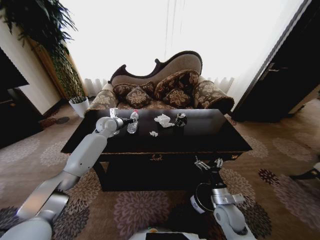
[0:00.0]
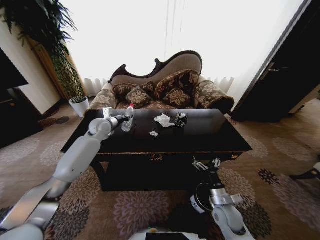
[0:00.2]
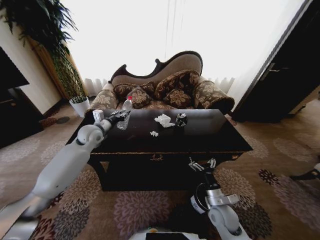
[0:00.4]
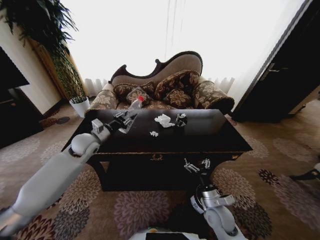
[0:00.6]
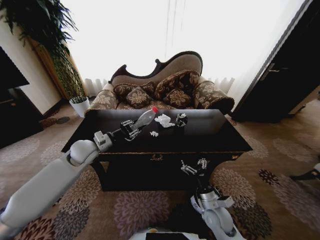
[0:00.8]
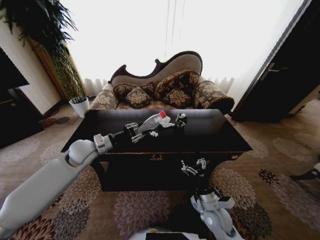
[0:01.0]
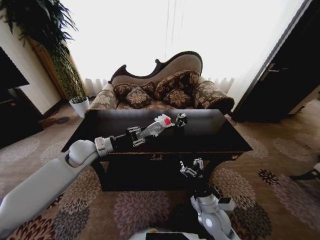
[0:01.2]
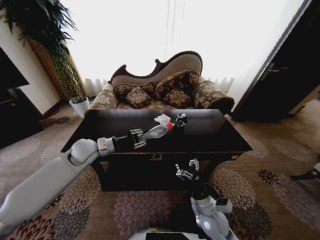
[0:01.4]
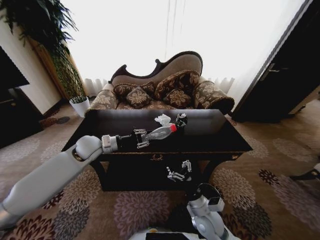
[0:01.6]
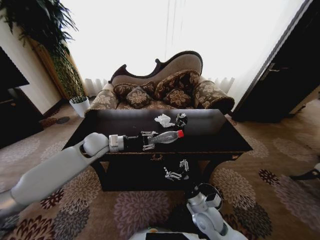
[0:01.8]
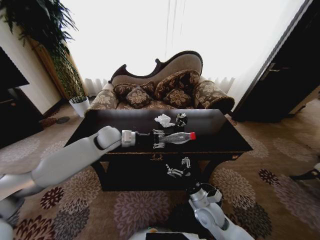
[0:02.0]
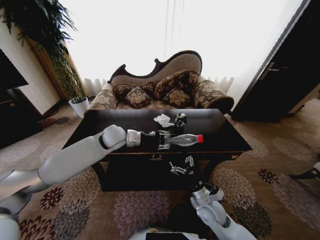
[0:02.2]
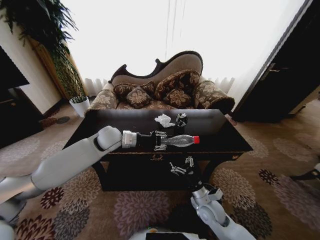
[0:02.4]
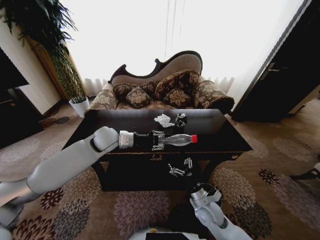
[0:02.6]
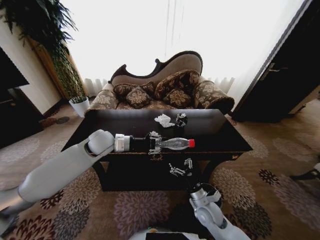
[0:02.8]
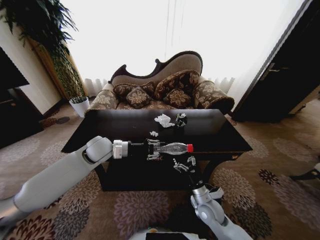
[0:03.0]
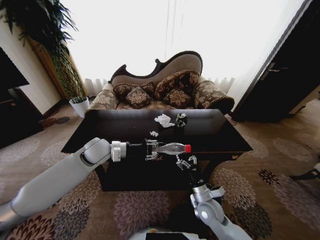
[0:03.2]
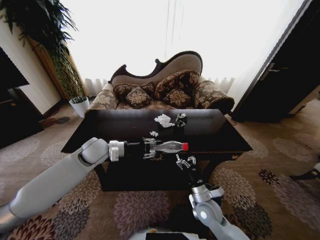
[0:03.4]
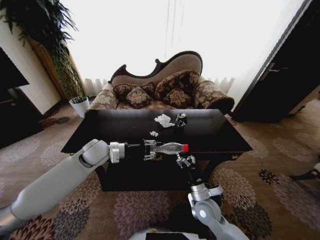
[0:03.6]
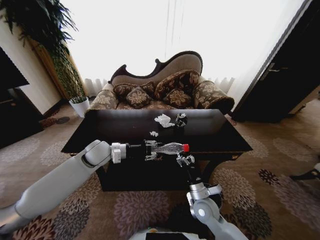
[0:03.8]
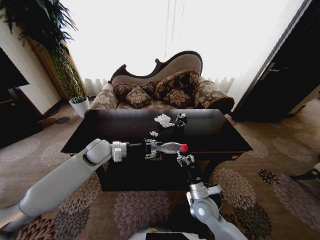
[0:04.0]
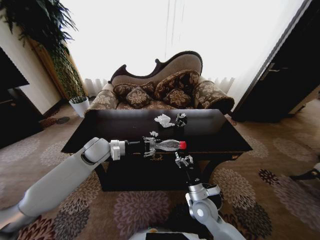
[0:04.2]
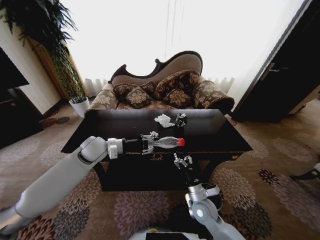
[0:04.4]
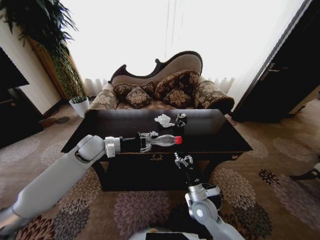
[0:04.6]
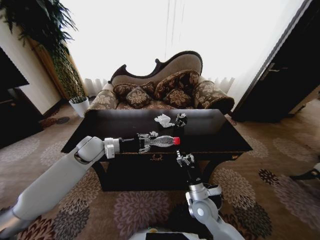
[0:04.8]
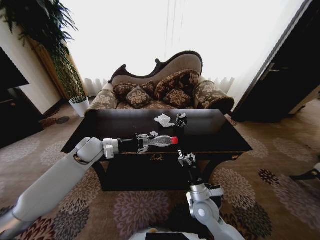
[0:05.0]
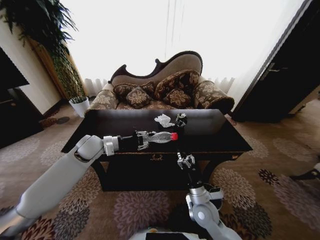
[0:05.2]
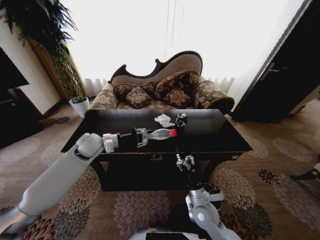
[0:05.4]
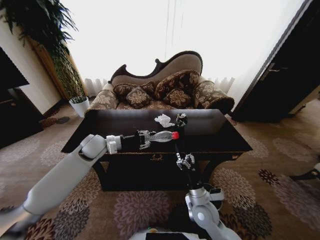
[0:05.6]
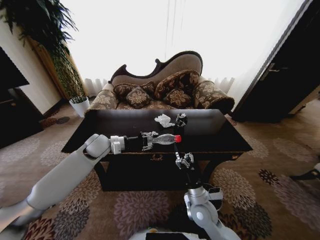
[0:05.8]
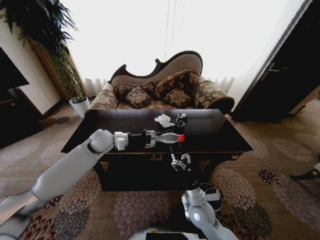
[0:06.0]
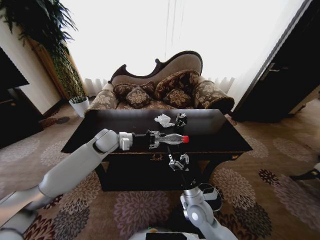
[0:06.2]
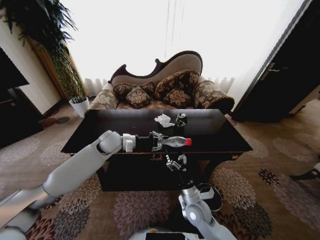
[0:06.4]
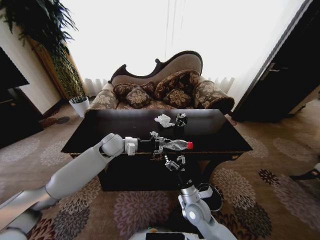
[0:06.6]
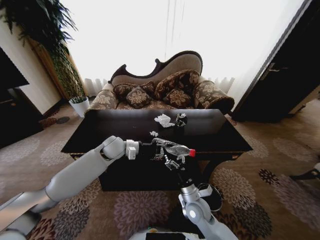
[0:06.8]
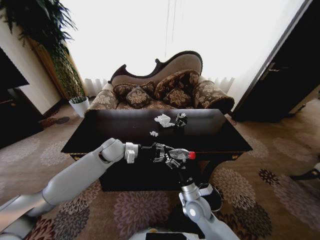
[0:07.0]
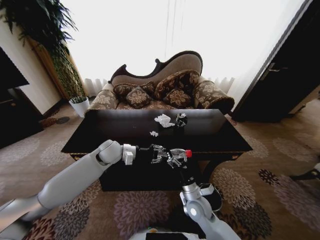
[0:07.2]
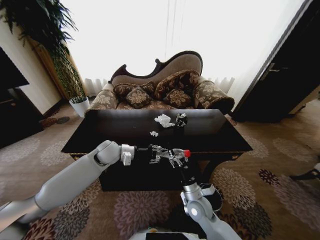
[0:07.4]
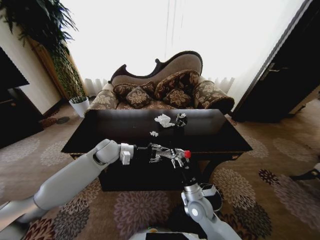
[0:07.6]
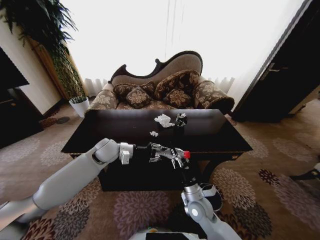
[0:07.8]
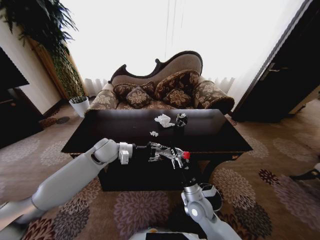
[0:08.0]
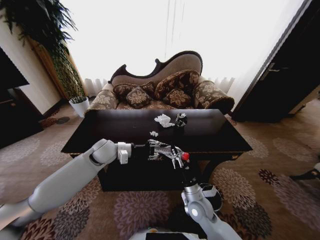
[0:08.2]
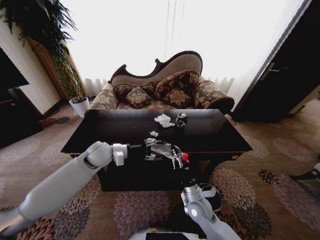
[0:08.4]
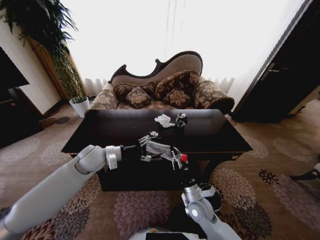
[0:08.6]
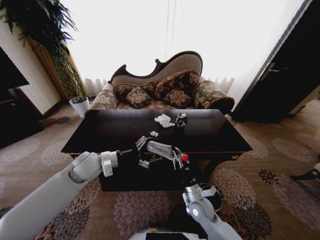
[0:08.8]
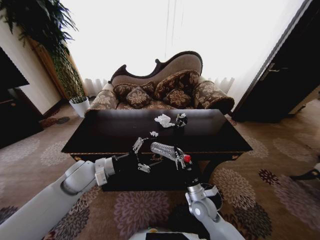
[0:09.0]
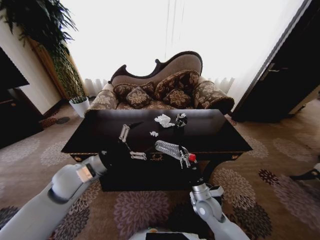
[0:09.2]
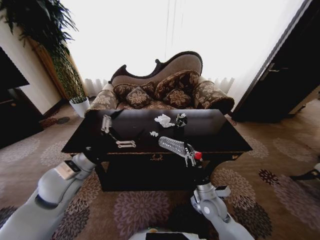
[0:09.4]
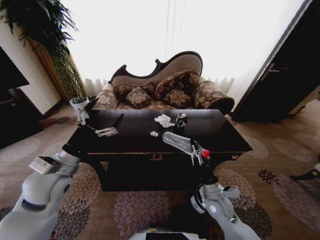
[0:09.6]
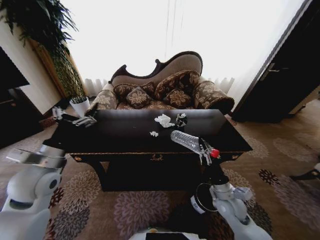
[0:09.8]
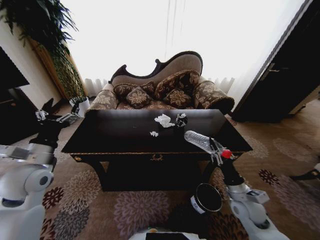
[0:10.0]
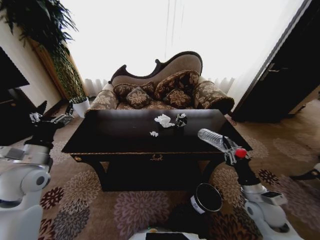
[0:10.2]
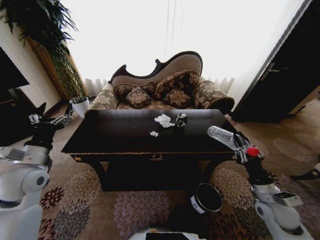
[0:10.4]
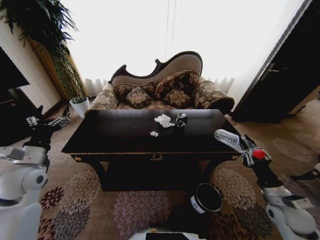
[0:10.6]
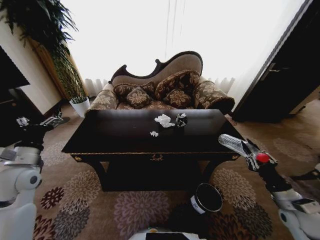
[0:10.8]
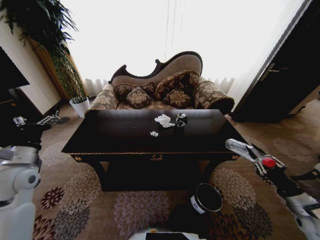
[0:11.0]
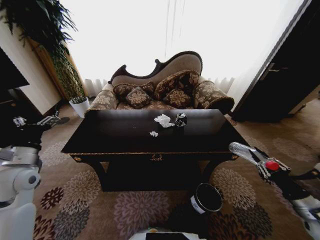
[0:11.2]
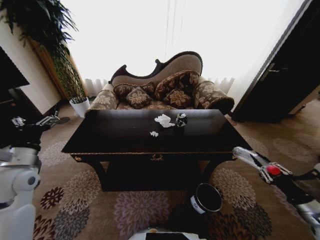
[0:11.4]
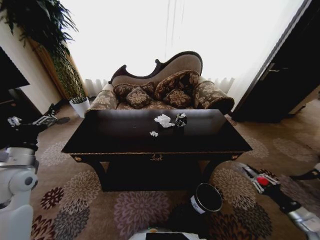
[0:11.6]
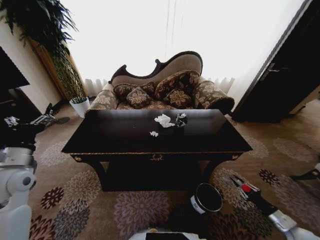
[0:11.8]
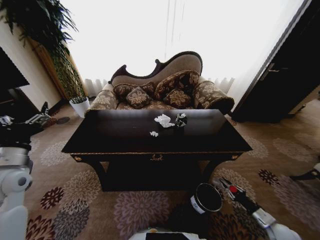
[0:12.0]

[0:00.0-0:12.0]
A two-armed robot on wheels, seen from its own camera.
Task of the whole recording: Move to the front of the table and place the trash on the table into the trash bin.
0:00.0 to 0:01.6: The left gripper heads backward, covering some 15 cm. Meanwhile the right gripper heads to the left, covering some 10 cm.
0:01.6 to 0:03.0: The right gripper shifts by some 5 cm.
0:03.0 to 0:06.0: The grippers make only small movements.
0:06.0 to 0:07.6: The right gripper closes. The left gripper ends up about 5 cm from where it was.
0:07.6 to 0:09.0: The right gripper closes, while the left gripper shifts roughly 10 cm backward and to the left, and opens up.
0:09.0 to 0:10.4: The right gripper heads to the right and upward, covering approximately 25 cm; the left gripper goes about 15 cm to the left.
0:10.4 to 0:12.0: The right gripper moves downward and to the right, roughly 20 cm.

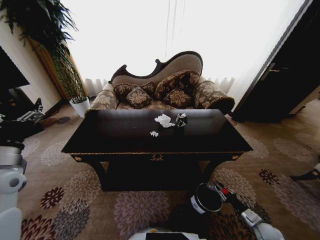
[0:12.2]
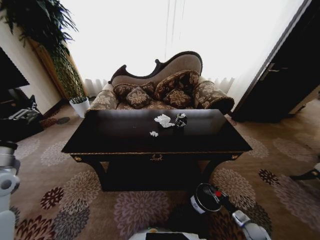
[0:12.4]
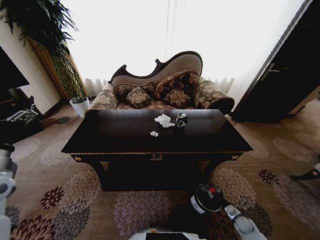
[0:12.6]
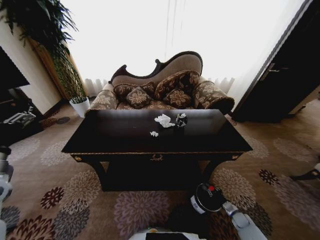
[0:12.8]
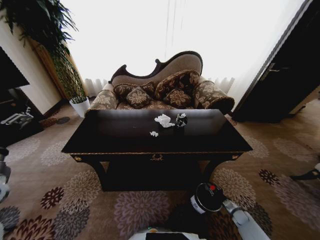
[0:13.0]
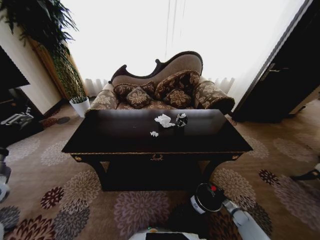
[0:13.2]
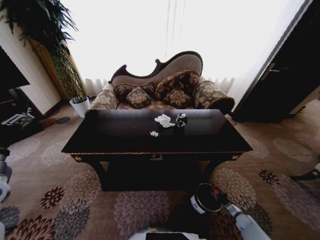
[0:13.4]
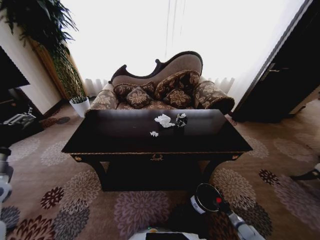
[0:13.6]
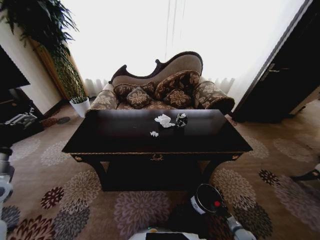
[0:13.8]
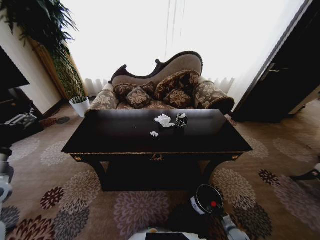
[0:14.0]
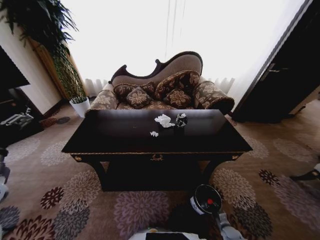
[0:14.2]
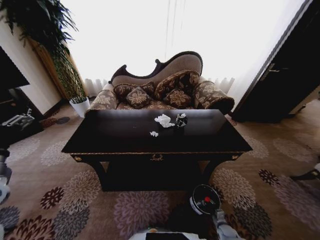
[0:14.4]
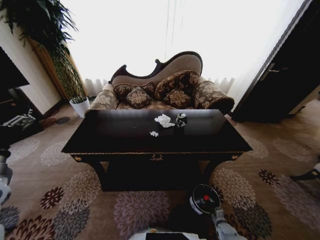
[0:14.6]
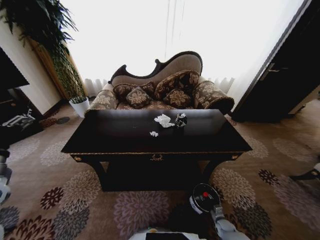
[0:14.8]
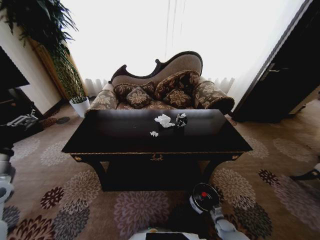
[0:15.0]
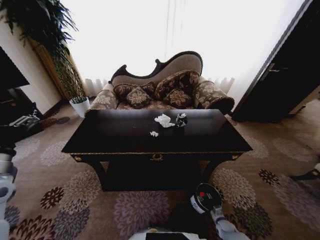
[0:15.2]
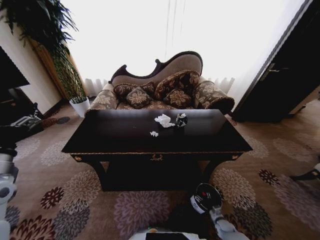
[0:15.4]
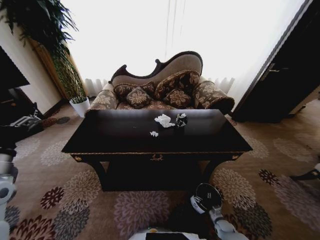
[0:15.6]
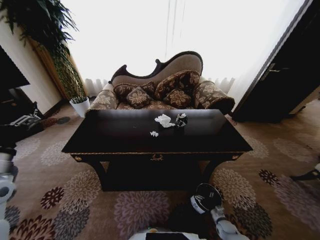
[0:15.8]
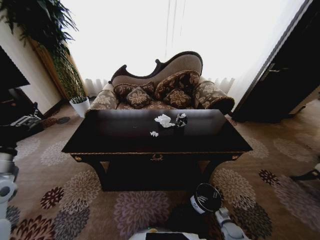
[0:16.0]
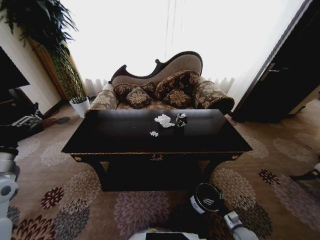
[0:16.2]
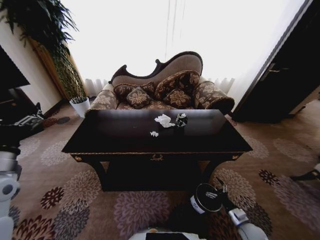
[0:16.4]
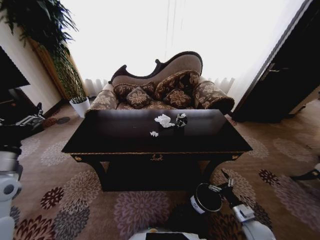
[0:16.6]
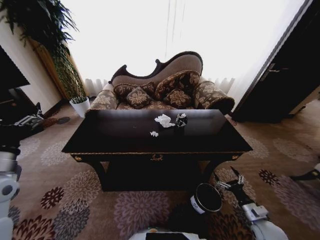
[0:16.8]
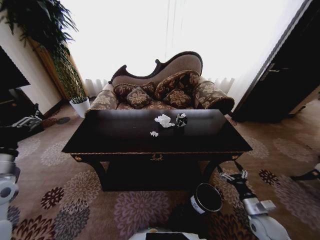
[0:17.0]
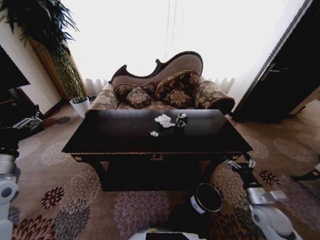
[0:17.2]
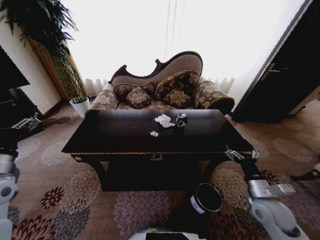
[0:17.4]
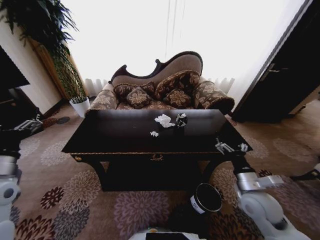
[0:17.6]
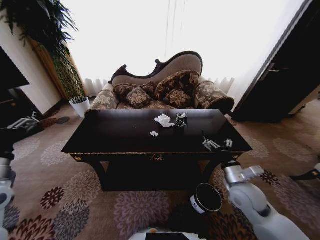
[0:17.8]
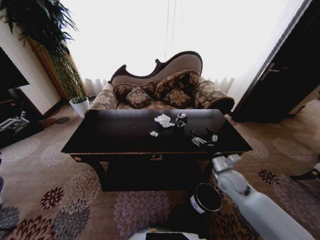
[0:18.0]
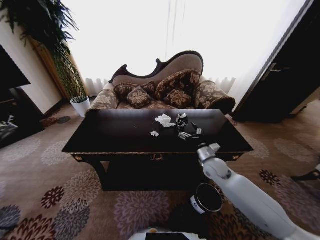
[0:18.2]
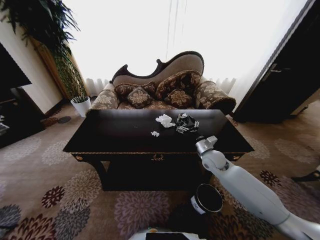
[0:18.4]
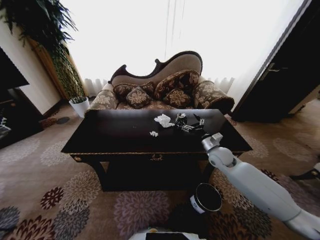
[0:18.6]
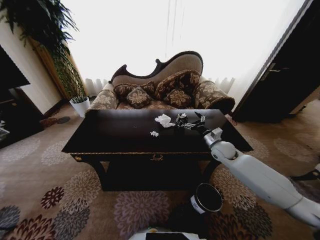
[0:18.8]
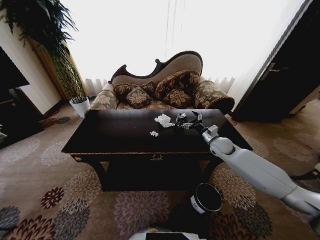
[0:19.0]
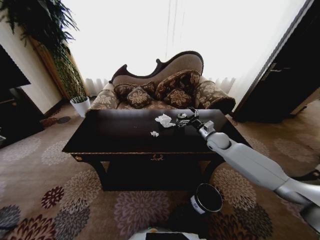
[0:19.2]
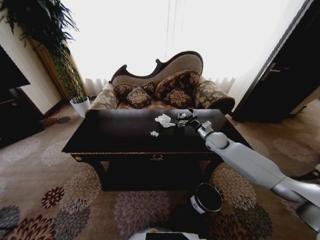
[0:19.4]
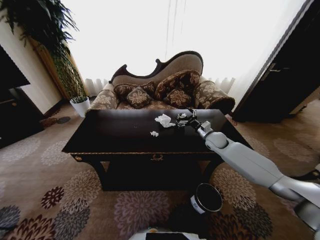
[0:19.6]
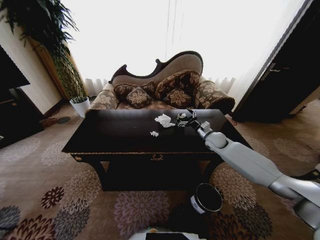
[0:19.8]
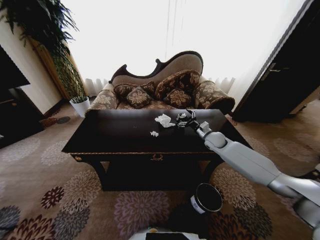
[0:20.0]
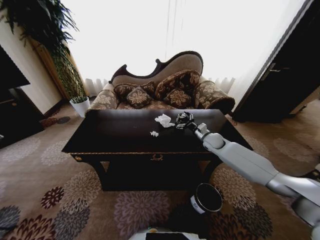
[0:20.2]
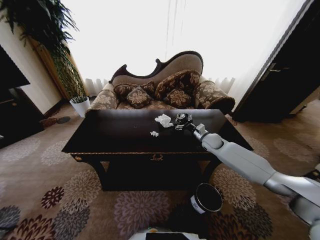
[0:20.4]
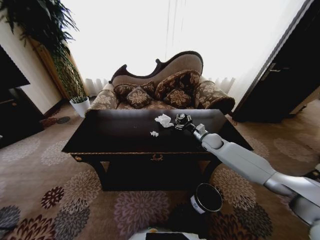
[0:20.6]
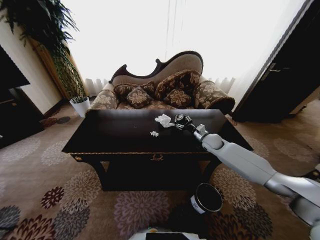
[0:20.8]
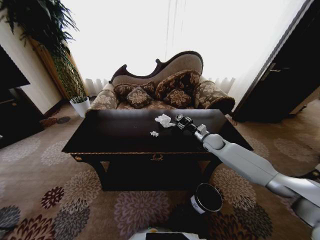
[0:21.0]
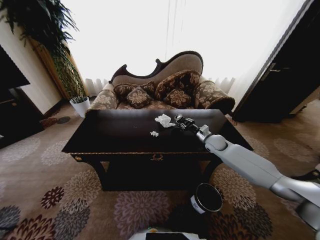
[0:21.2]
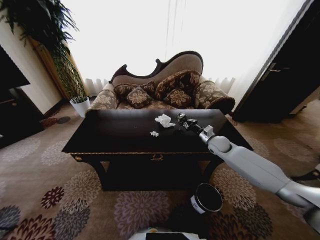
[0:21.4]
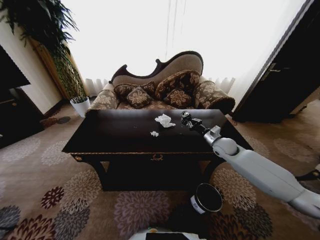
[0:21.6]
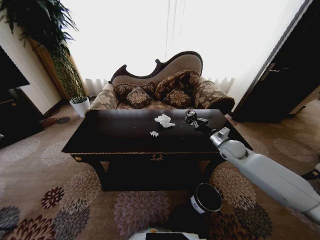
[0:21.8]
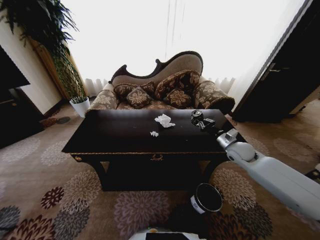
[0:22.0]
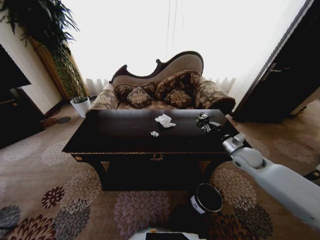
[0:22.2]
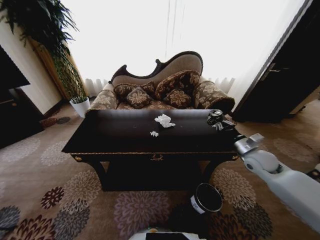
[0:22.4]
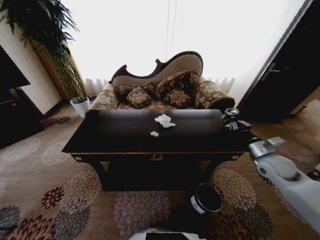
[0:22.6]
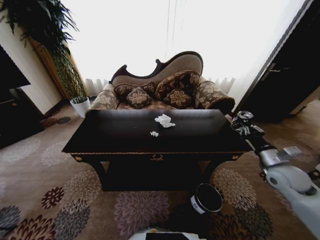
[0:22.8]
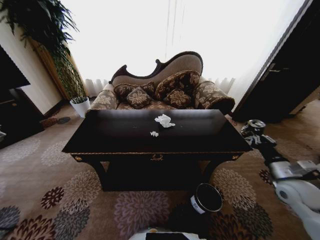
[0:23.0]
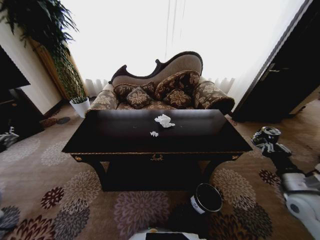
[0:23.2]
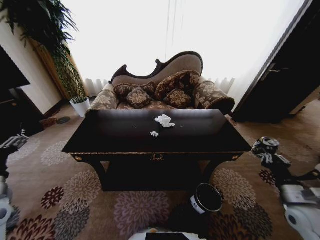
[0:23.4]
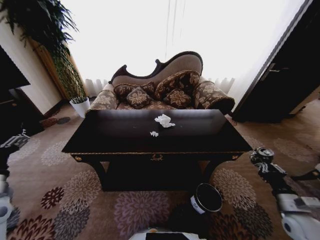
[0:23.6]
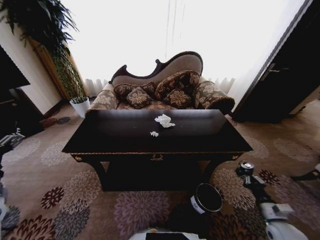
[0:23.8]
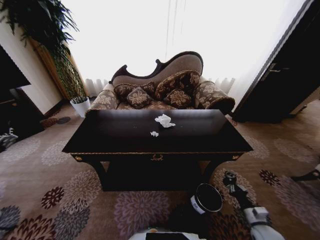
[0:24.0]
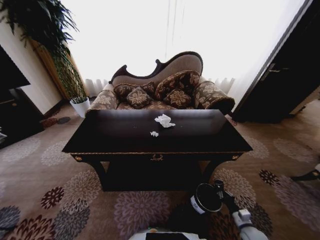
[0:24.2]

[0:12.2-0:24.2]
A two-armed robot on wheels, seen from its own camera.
Task of the whole recording: Move to the front of the table and place the trash on the table into the trash bin.
0:12.2 to 0:13.8: The right gripper is displaced downward by some 15 cm.
0:13.8 to 0:15.2: The right gripper goes some 10 cm to the left.
0:15.2 to 0:16.6: The right gripper is displaced upward by approximately 20 cm, and opens its fingers.
0:16.6 to 0:18.2: The left gripper heads backward, covering approximately 10 cm. Meanwhile the right gripper is displaced forward, upward and to the left by roughly 30 cm.
0:18.2 to 0:19.8: The right gripper travels forward by some 15 cm.
0:19.8 to 0:21.2: The right gripper closes its fingers.
0:21.2 to 0:22.6: The right gripper moves backward and to the right, roughly 20 cm.
0:22.6 to 0:24.2: The right gripper is displaced downward and backward by roughly 35 cm.
